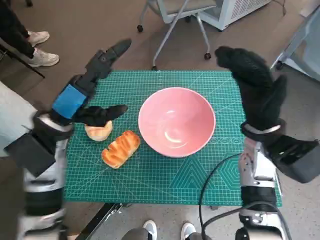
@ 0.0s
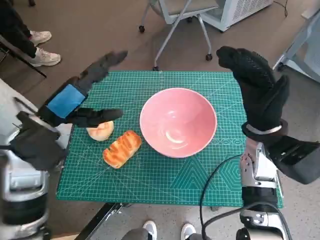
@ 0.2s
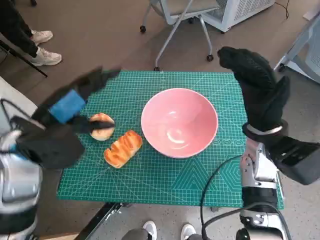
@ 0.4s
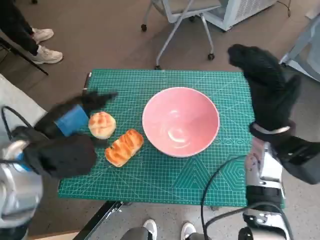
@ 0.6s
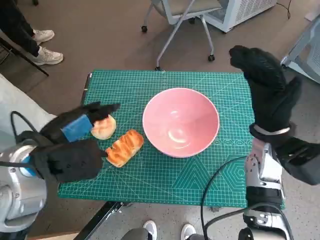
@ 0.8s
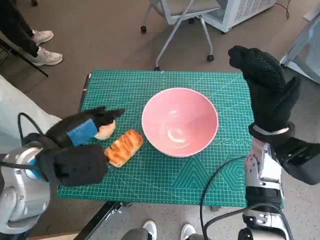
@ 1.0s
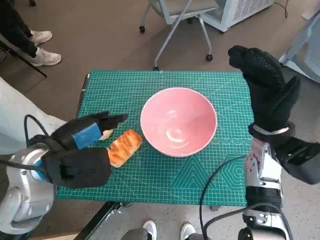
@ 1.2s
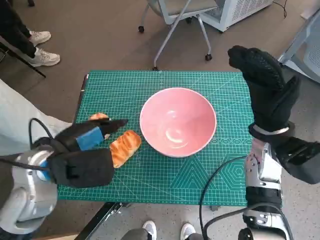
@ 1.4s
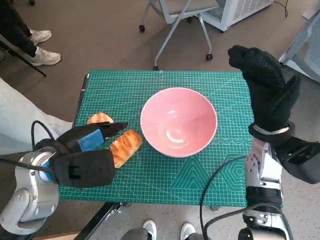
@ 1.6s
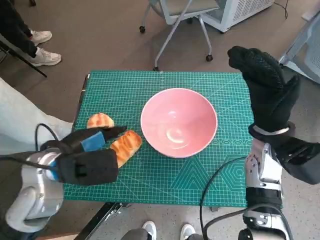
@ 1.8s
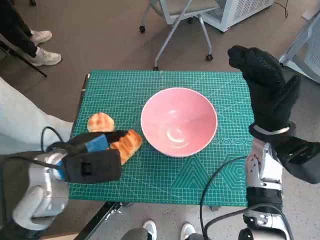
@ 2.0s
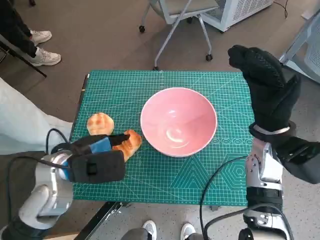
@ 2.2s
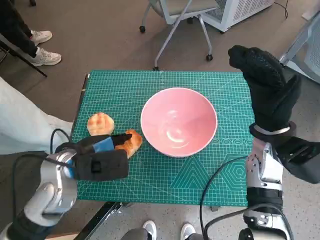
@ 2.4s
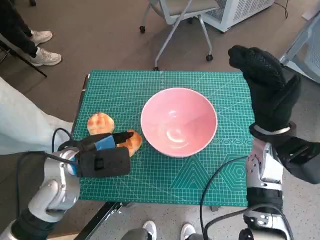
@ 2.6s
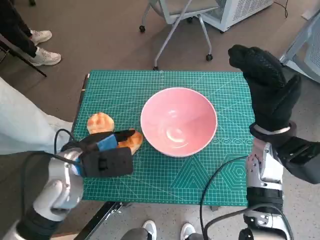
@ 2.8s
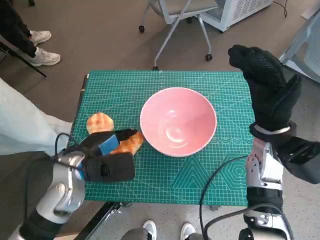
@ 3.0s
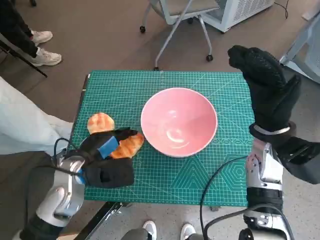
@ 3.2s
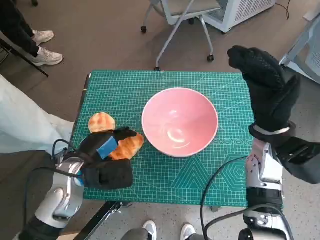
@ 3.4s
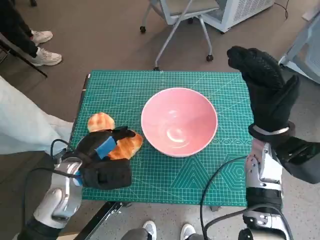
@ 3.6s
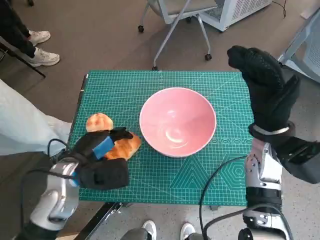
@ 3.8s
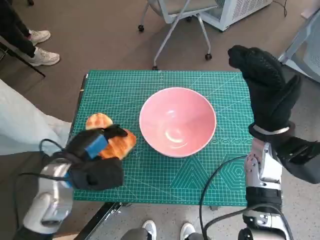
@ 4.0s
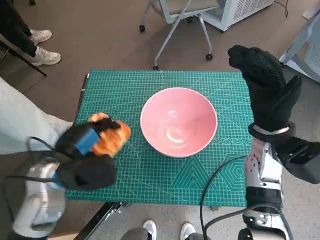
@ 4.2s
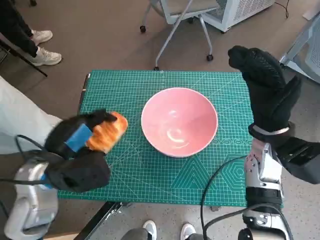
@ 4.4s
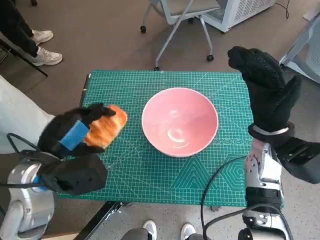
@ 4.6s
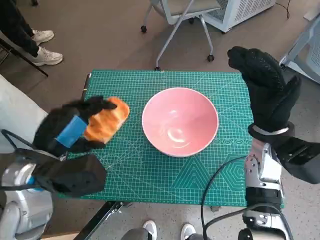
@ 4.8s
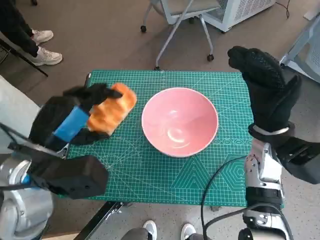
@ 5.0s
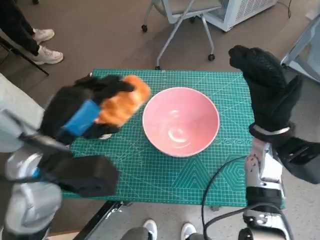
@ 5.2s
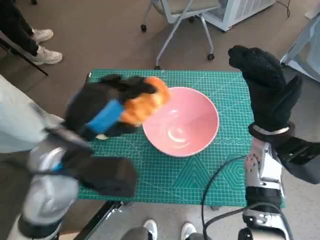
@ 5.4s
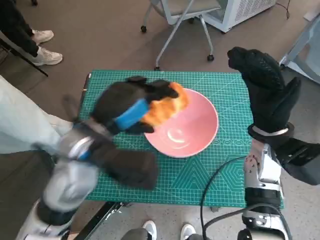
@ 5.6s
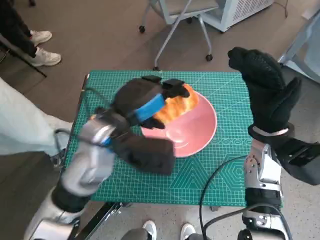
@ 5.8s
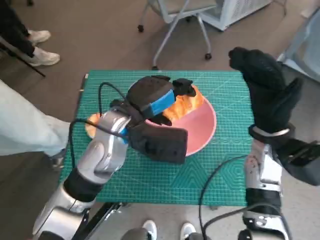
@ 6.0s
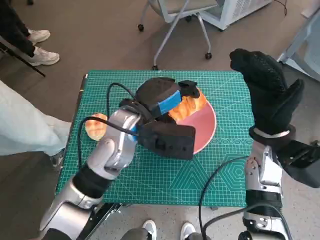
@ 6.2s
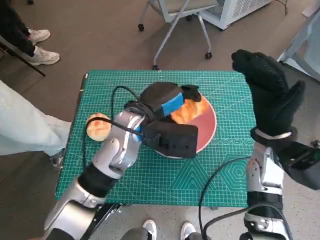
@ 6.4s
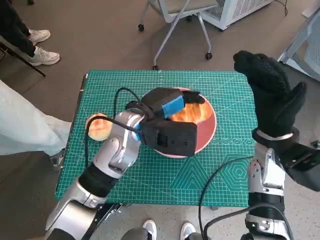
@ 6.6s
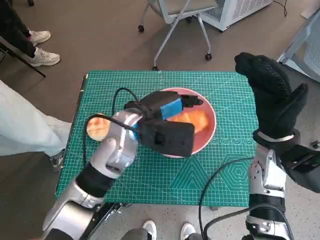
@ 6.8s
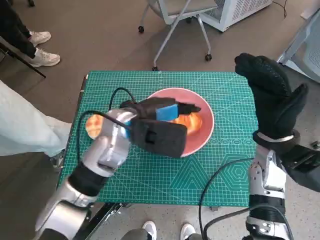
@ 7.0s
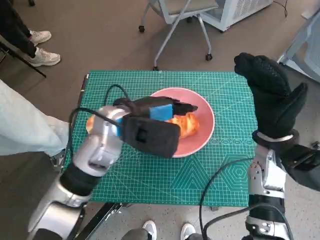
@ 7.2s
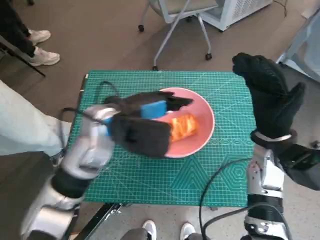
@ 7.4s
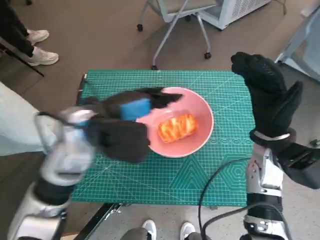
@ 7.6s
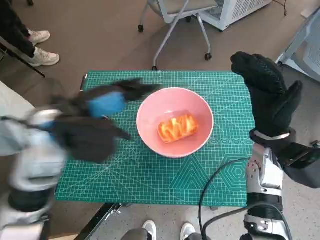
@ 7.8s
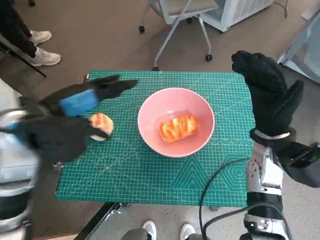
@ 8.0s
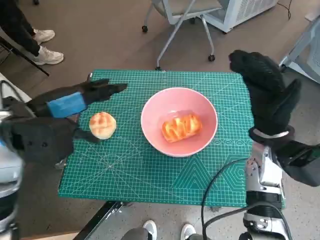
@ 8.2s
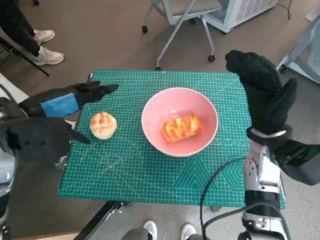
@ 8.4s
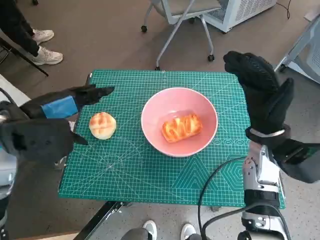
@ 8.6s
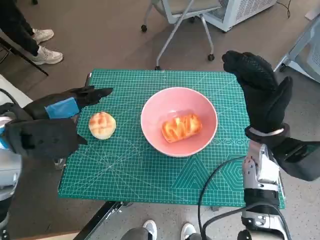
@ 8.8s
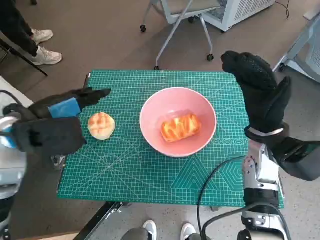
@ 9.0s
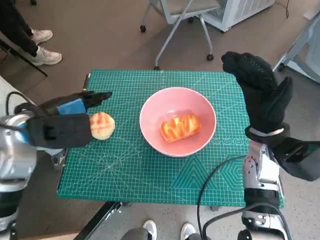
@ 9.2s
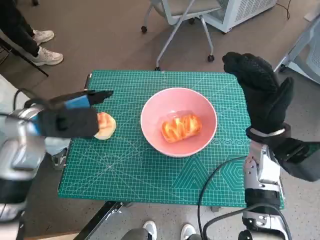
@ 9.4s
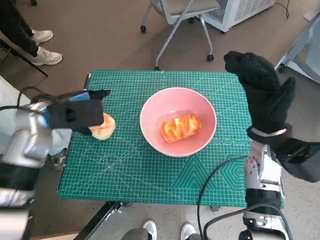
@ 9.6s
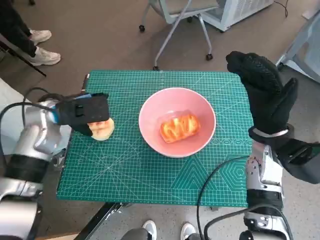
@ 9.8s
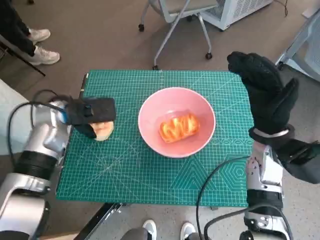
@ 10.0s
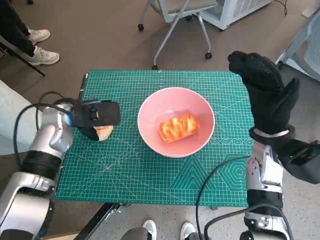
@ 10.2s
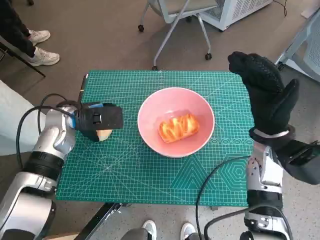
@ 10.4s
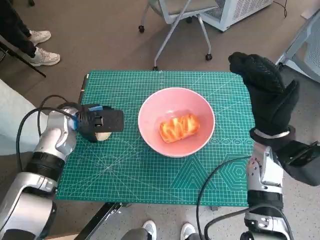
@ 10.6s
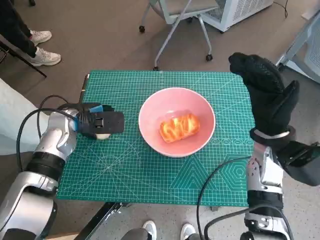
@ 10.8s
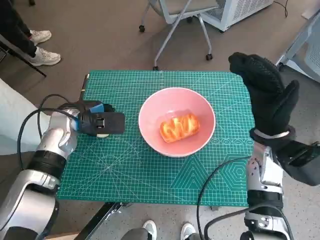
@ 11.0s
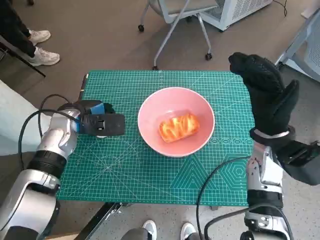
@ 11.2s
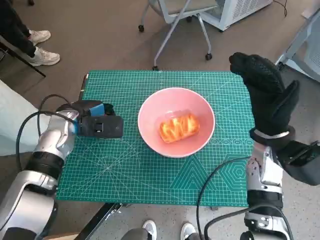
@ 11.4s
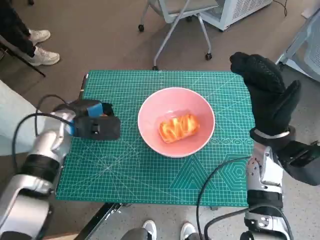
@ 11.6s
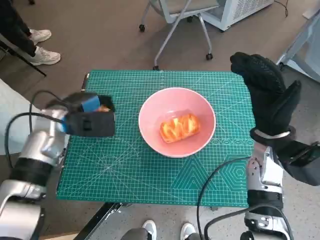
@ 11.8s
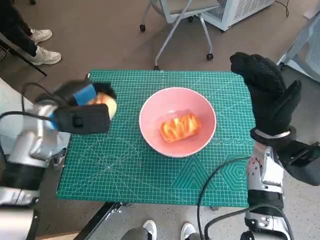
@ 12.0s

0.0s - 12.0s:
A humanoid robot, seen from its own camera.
Task of the whole recording: Push the bowl into the center of the table and put the bread into the bowl.
Step, 0.0s - 3.4s: Grasp the long bread with left hand.
Step, 3.6s - 7.6s: Place the long bread in pink bowl with left hand.
Step, 7.8s - 11.4s: Grasp the round bread with left hand.
1.6s - 3.0s: The left hand heads downward, covering approximately 5 cm.
3.0s - 4.4s: The left hand changes place by roughly 5 cm.
4.4s - 6.0s: The left hand heads to the right and forward, covering about 15 cm.
7.6s - 9.0s: The left hand travels to the left by approximately 10 cm.
9.0s - 10.4s: The left hand is displaced downward and forward by roughly 10 cm.

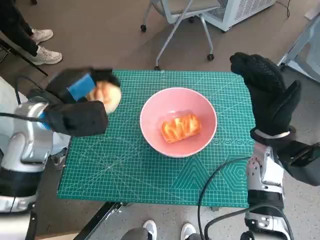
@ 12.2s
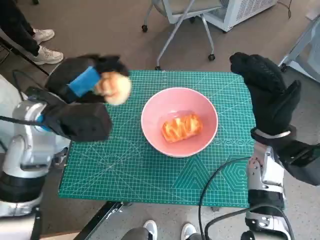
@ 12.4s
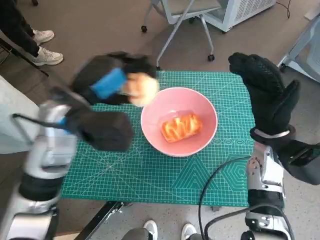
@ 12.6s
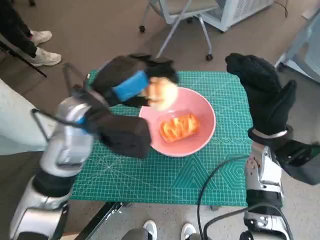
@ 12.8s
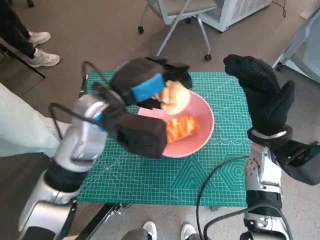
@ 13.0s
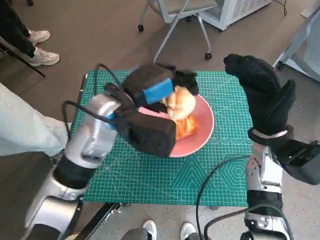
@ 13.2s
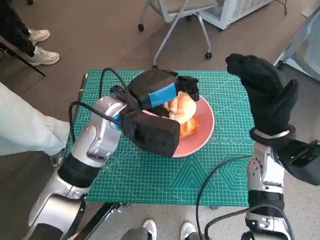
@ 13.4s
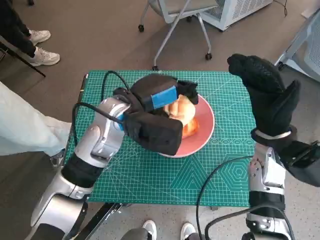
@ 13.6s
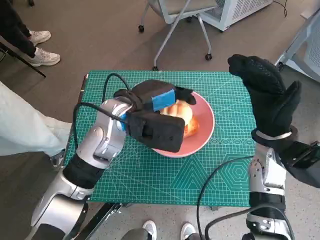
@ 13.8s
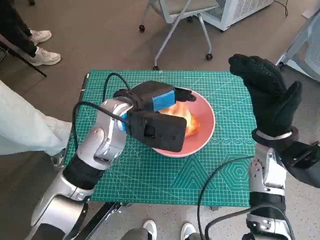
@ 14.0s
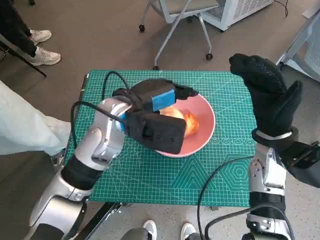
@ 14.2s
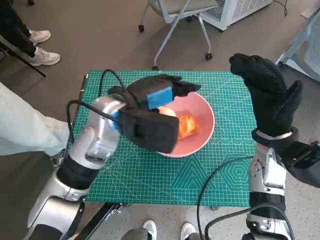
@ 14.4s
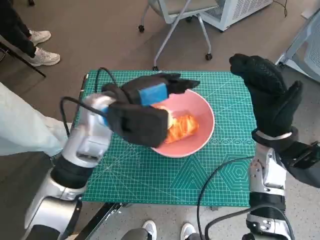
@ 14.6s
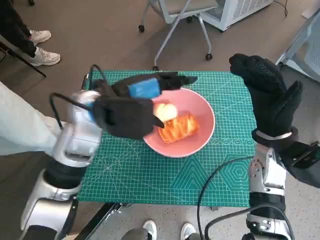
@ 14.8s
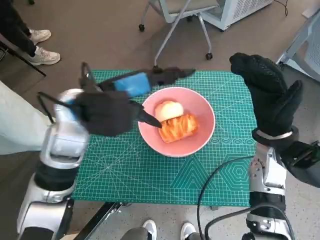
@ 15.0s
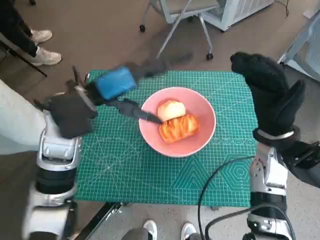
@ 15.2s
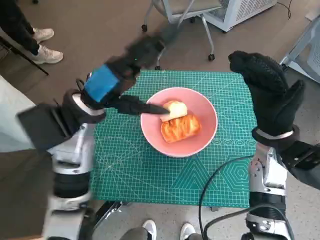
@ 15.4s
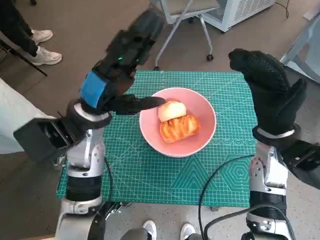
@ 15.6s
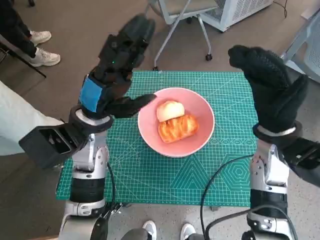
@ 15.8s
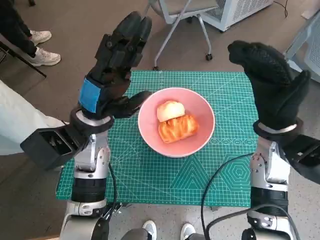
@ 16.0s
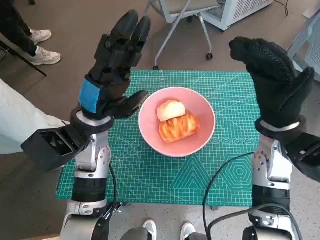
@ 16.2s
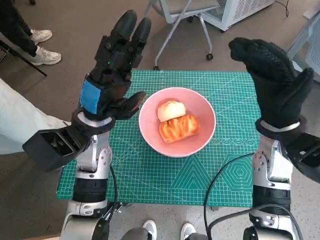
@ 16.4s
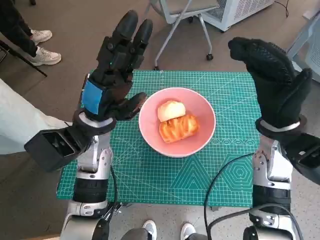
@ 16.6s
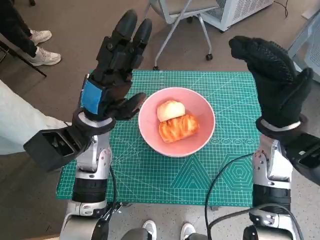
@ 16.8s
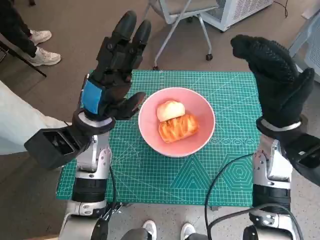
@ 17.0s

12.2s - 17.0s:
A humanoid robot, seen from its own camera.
Task of the whole recording: Push the bowl into the center of the table and put the bread into the bowl.
Step, 12.2s - 14.8s: Place the round bread in pink bowl with left hand.
12.2s - 13.8s: The left hand travels to the right by approximately 15 cm.
13.8s - 15.4s: The left hand heads to the left, covering some 5 cm.
